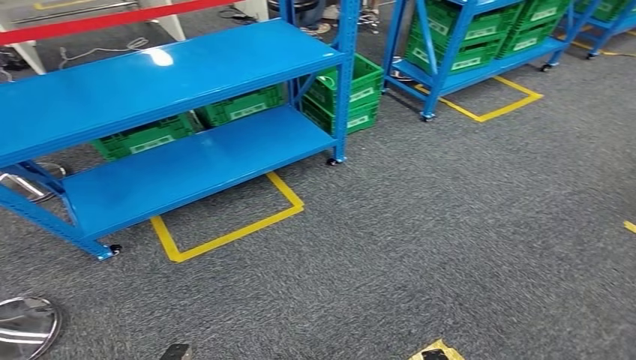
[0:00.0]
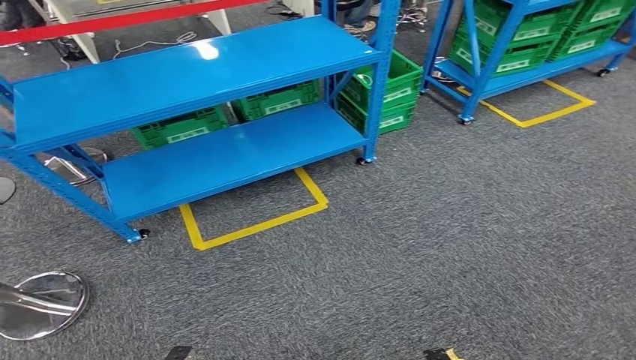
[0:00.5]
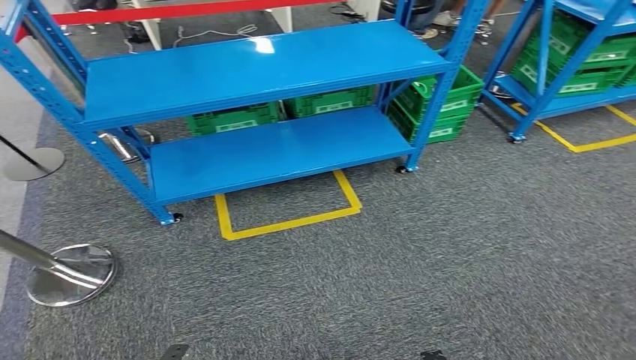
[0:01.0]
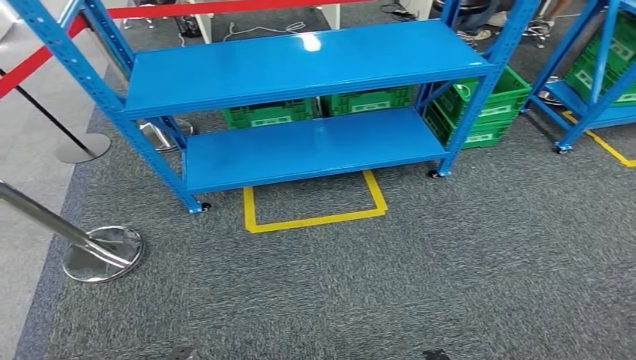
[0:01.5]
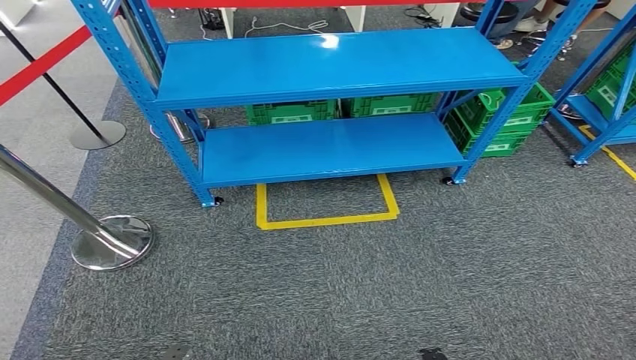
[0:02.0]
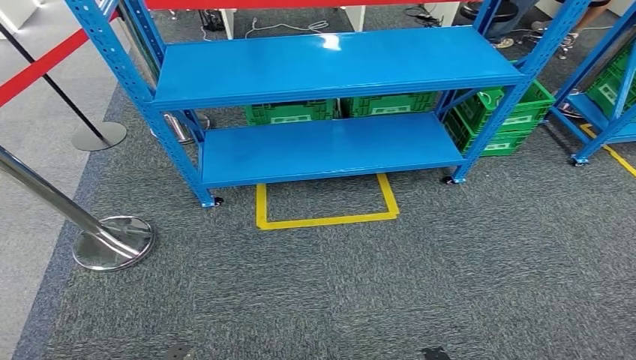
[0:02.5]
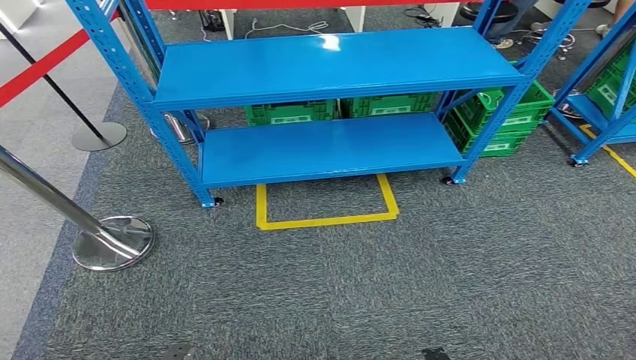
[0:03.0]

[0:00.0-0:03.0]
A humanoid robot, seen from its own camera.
Step, 0:00.0 to 0:03.0: Return to the initial position at the workbench.
